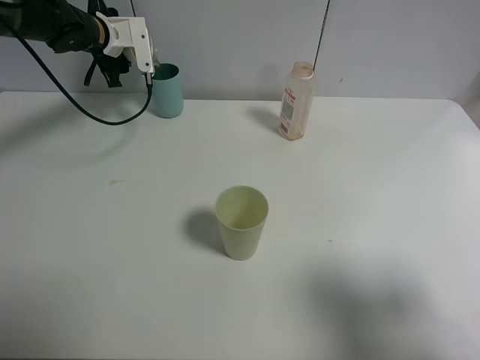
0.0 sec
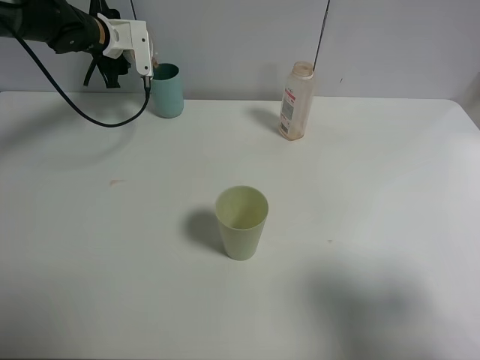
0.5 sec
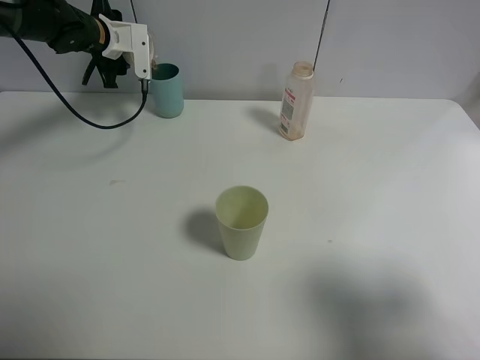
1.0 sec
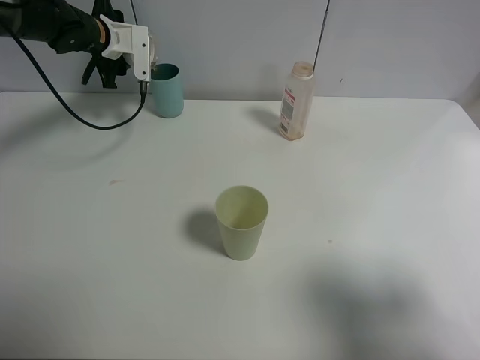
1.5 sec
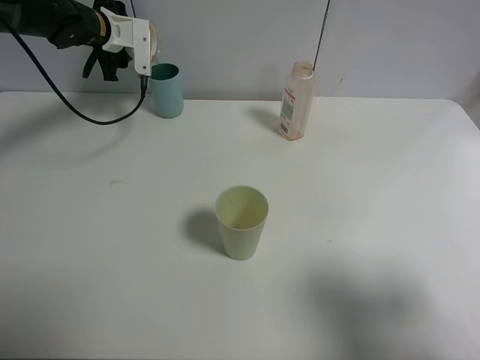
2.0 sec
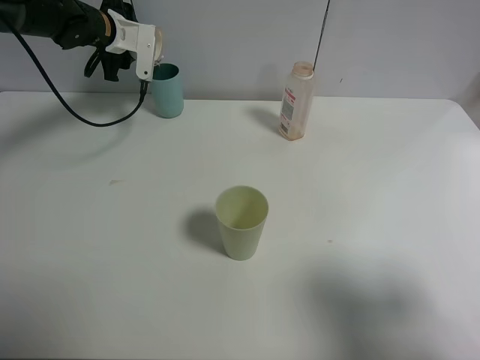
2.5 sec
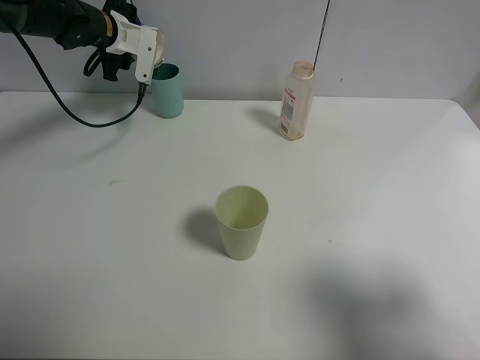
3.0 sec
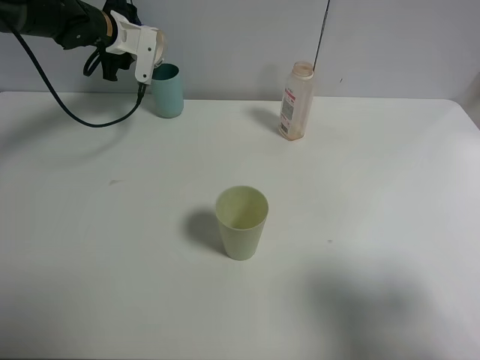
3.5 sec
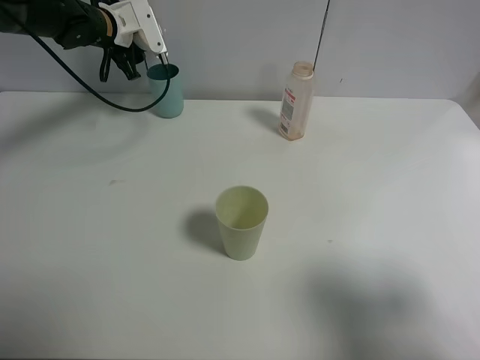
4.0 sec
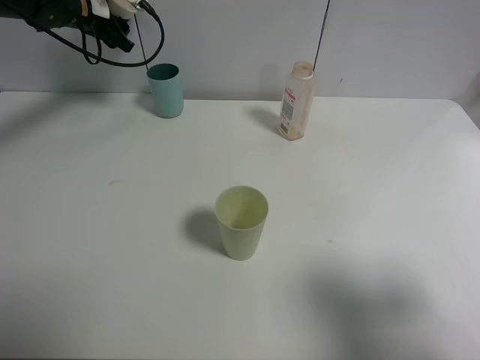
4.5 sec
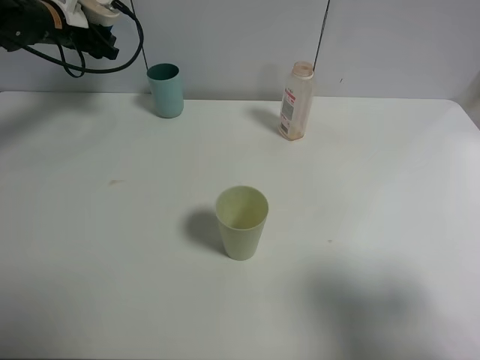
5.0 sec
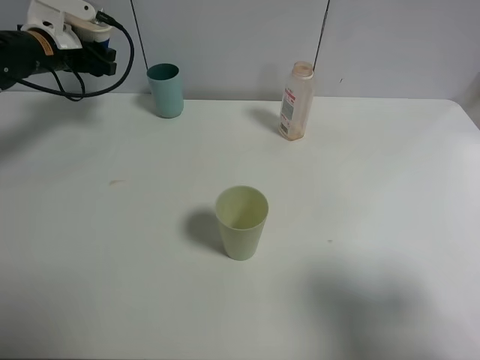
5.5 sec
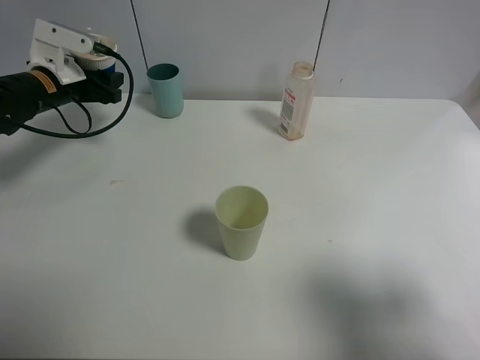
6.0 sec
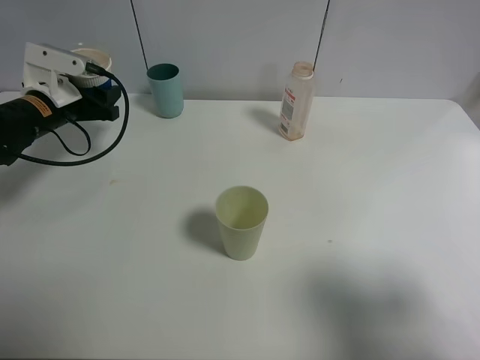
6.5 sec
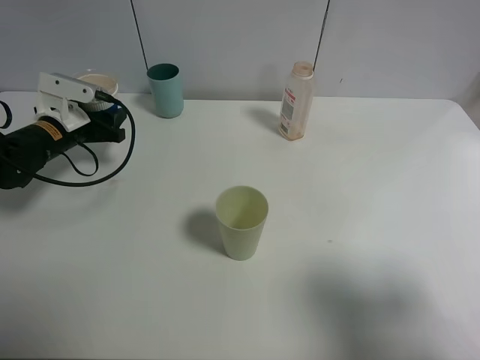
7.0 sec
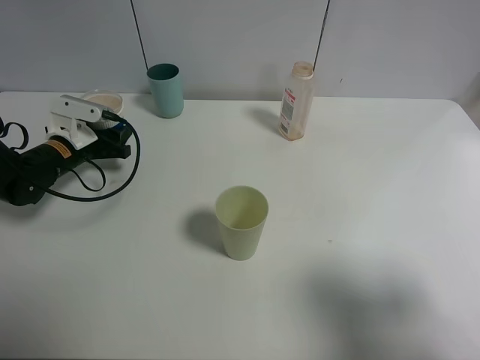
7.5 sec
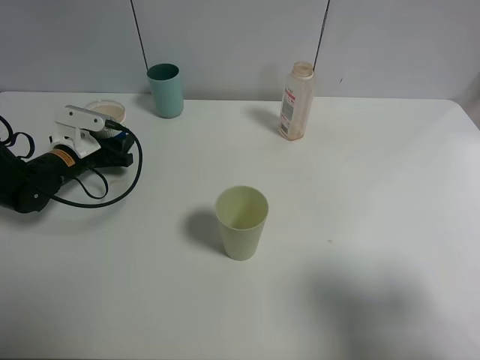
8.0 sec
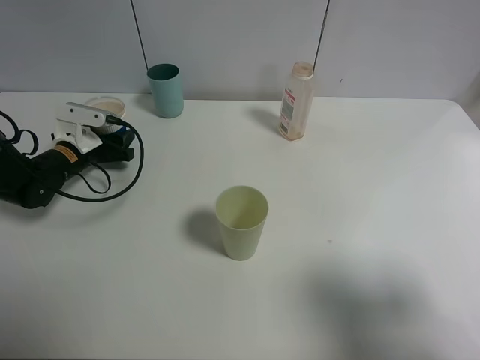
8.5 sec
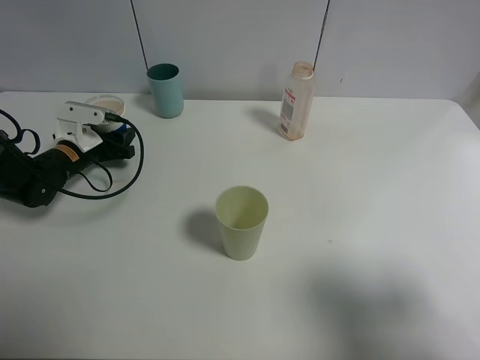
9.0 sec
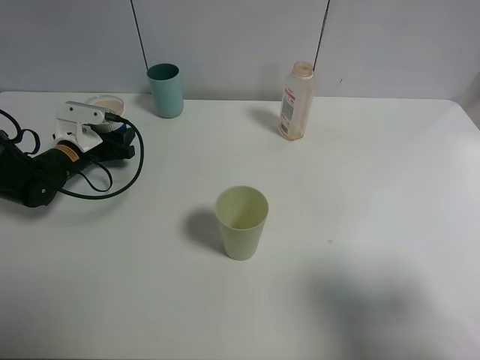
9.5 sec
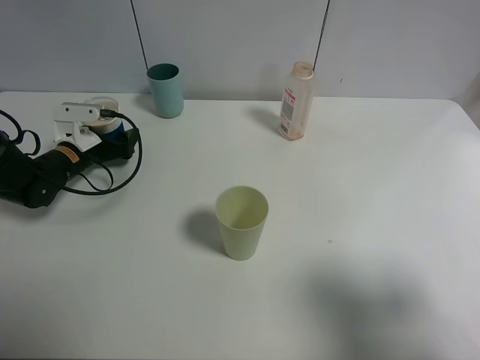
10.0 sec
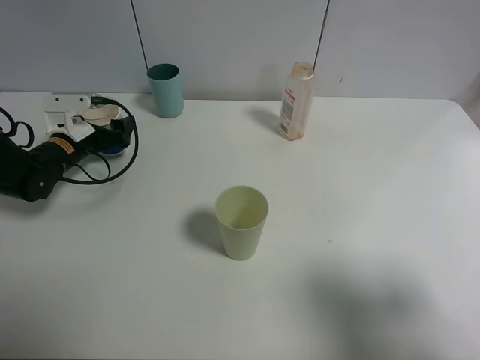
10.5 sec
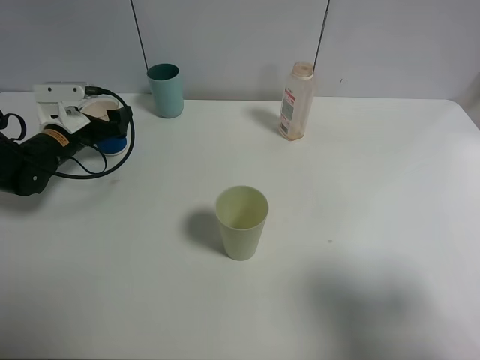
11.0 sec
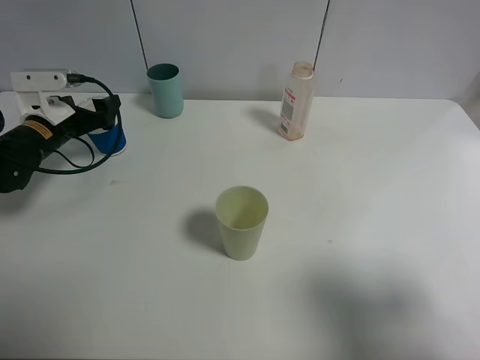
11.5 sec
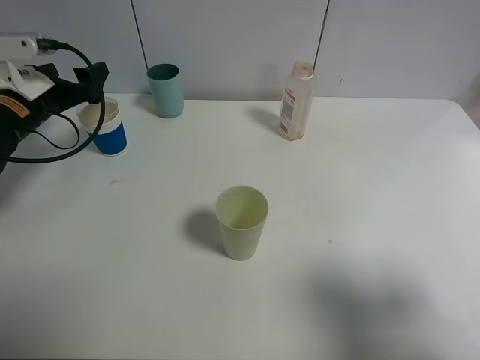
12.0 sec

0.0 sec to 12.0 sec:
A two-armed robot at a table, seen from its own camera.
Task of the whole recording: use a clamp to hold the bottle of the drink, pour the beverage into a random cup, then clamp the cup containing the drink and pour the drink into another random cup.
Step, 0.0 sec to 4.0 sec: Pour the drink into the blue plastic cup with left gripper.
Step, 4.5 sec to 10.5 sec: Place the paper cup on the table with left gripper.
0.0 sec to 2.0 sec: The grippers make only small movements.
4.0 sec to 6.0 sec: The left gripper moves backward and to the left, approximately 15 cm.
6.0 sec to 8.0 sec: The left gripper travels downward by some 10 cm.
8.0 sec to 10.0 sec: The left gripper opens up.
10.0 sec to 12.0 sec: The left gripper heads upward, covering some 10 cm.

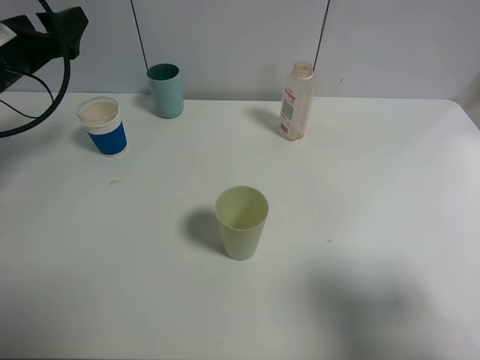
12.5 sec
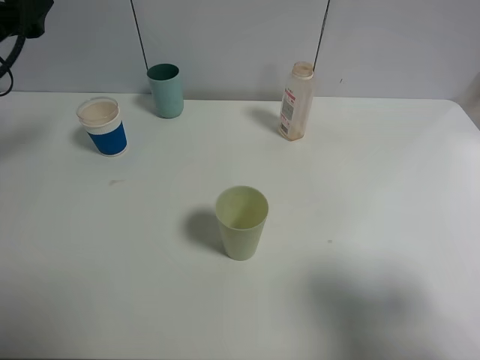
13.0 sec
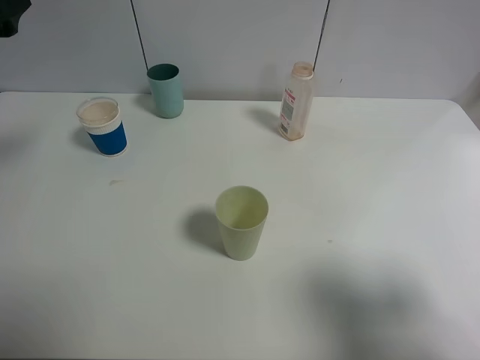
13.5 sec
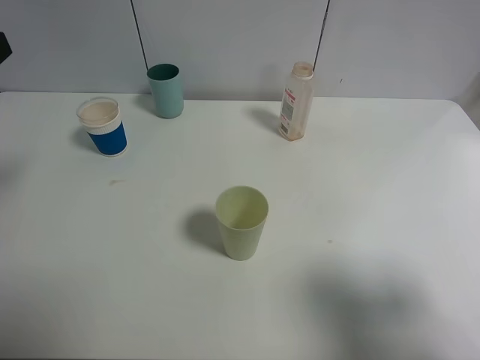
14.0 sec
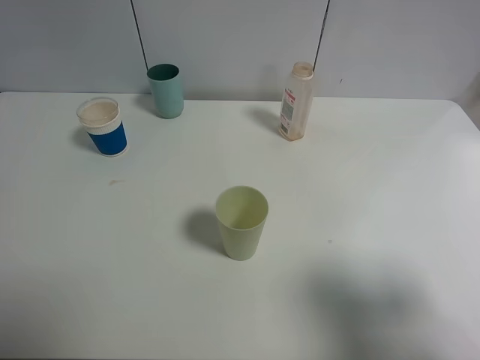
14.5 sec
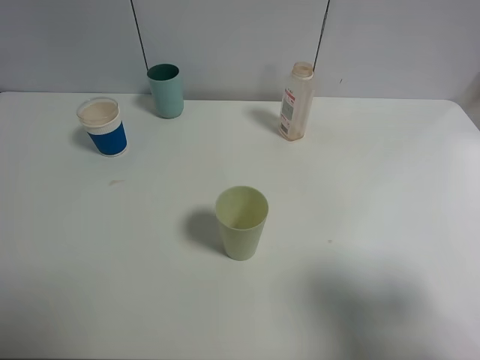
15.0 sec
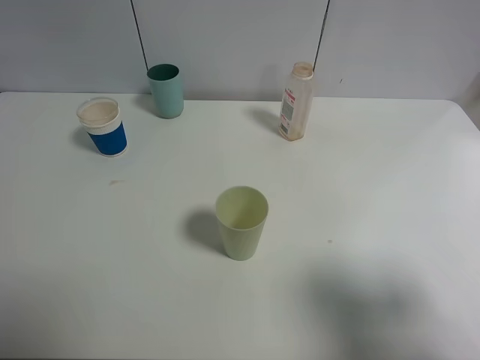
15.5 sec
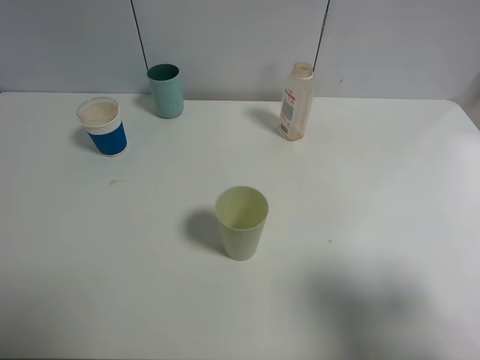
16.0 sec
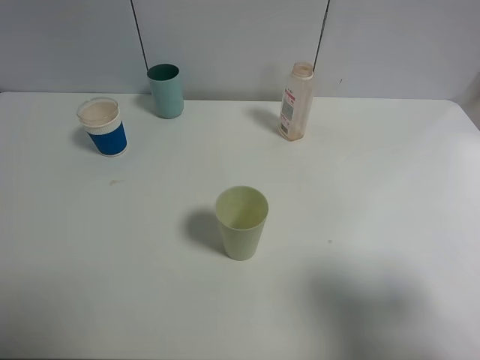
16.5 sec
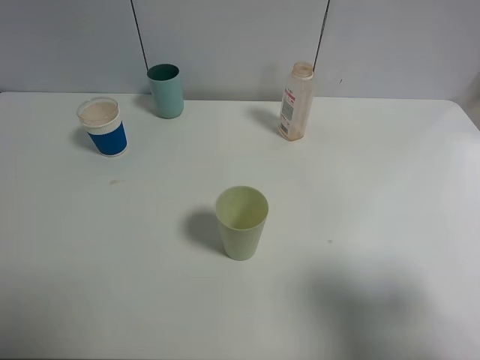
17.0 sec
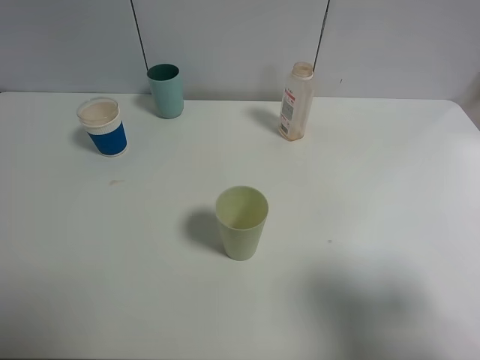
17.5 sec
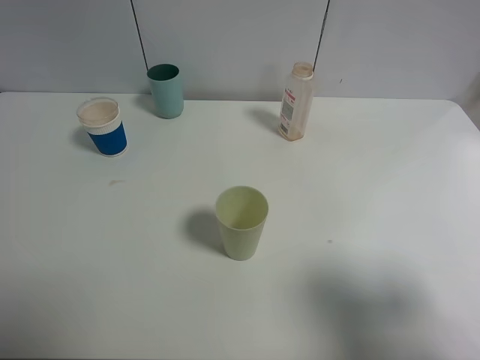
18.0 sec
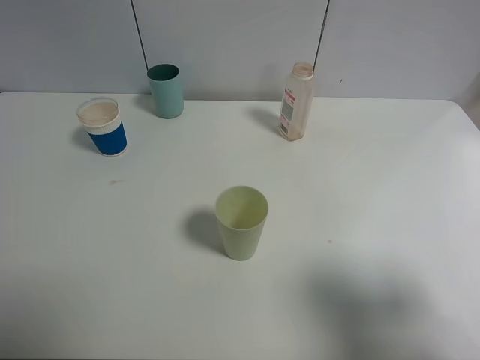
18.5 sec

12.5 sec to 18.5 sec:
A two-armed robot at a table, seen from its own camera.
Task of the whole recording: use a clamp to hold the bottle of the drink, pour the beverage into a random cup, then clamp the cup containing the drink and pour the drink into another random cup.
12.5 sec to 14.5 sec: The left gripper moves backward and upward, some 20 cm.

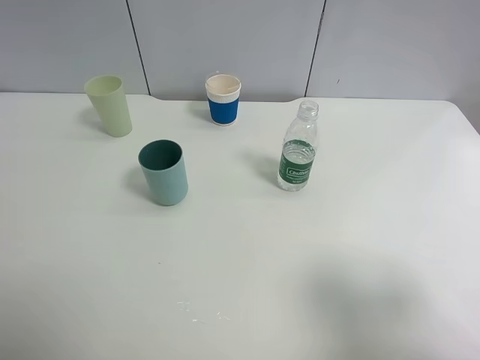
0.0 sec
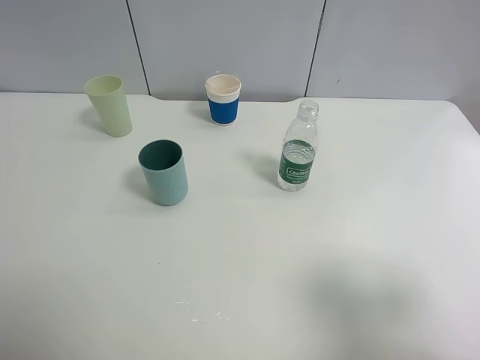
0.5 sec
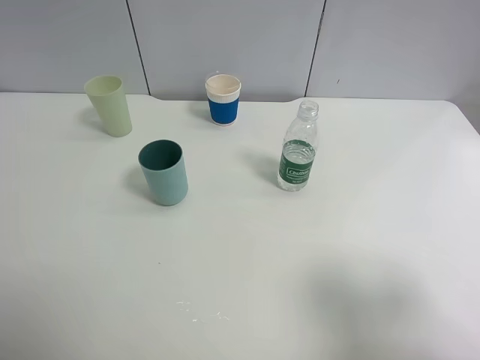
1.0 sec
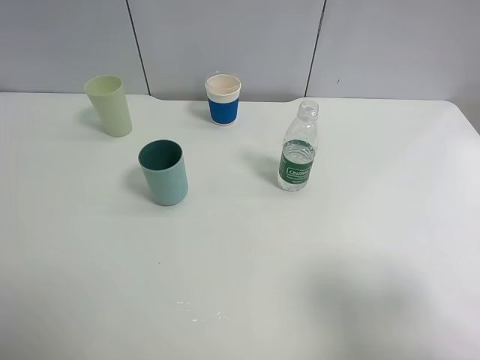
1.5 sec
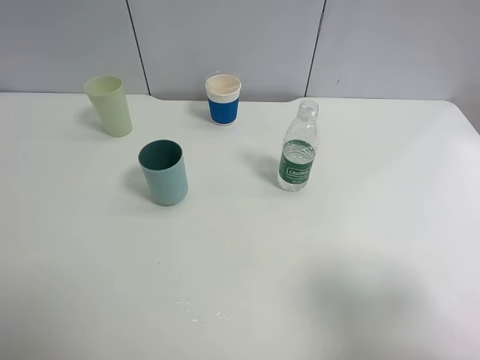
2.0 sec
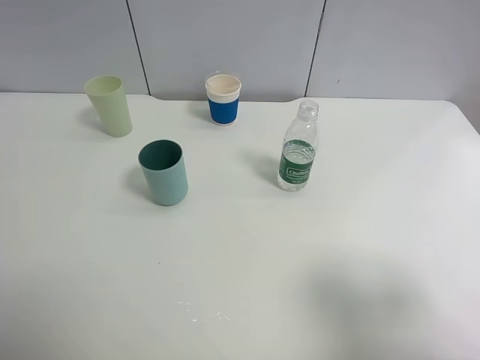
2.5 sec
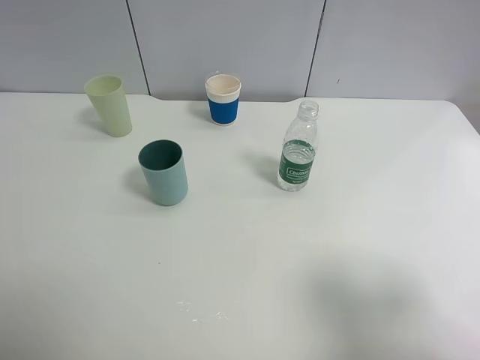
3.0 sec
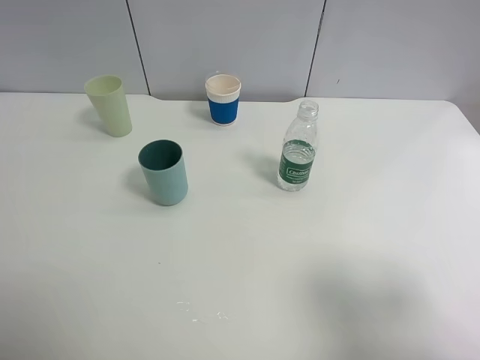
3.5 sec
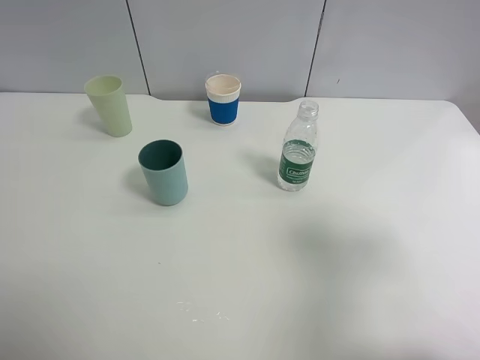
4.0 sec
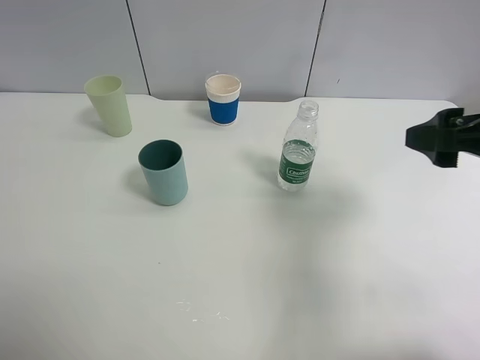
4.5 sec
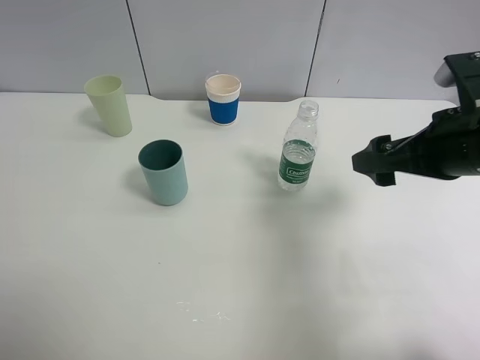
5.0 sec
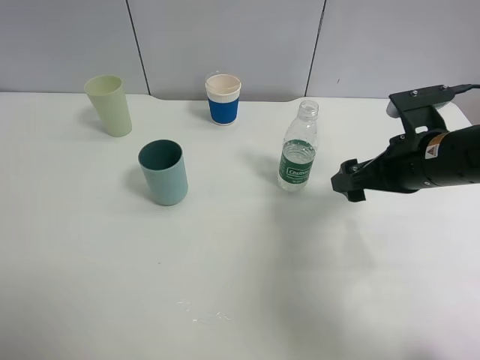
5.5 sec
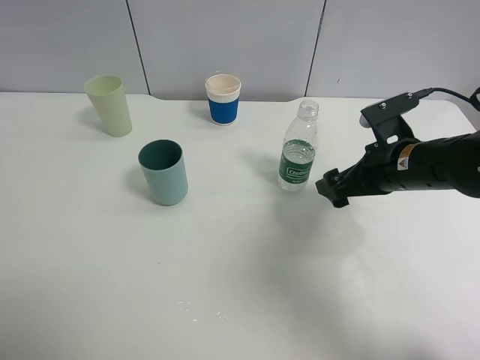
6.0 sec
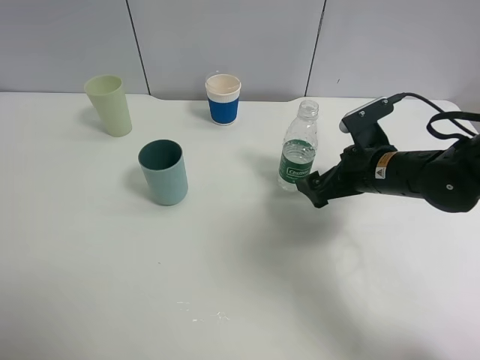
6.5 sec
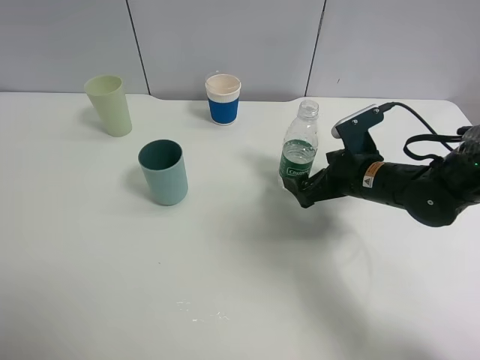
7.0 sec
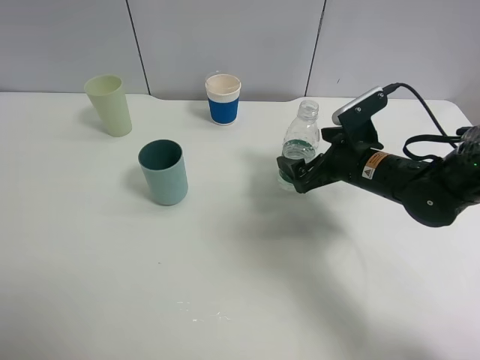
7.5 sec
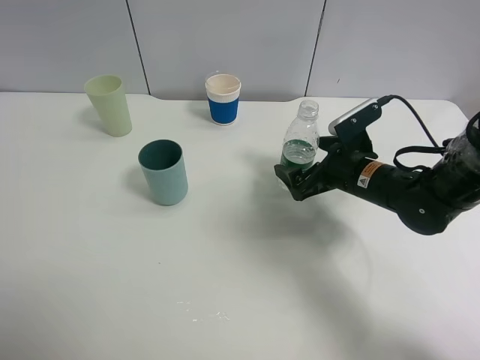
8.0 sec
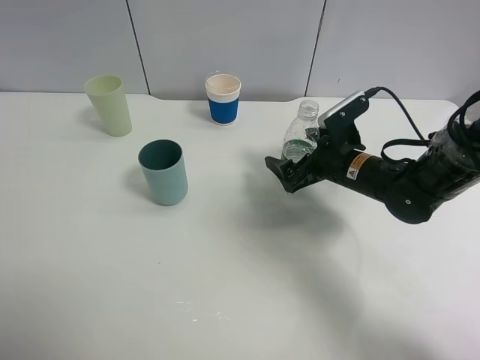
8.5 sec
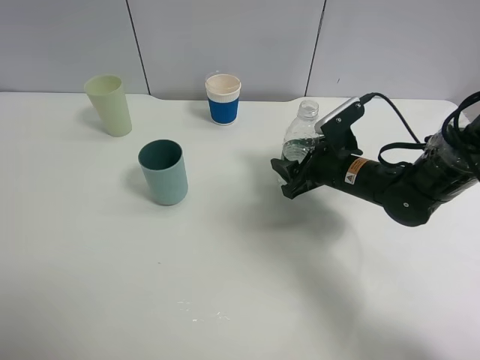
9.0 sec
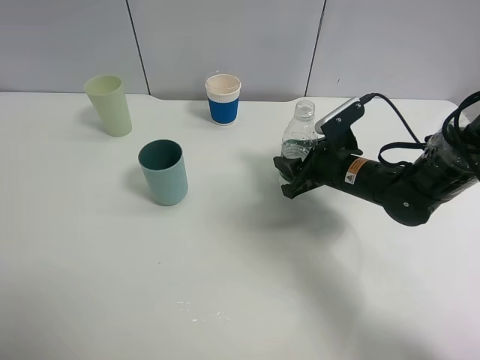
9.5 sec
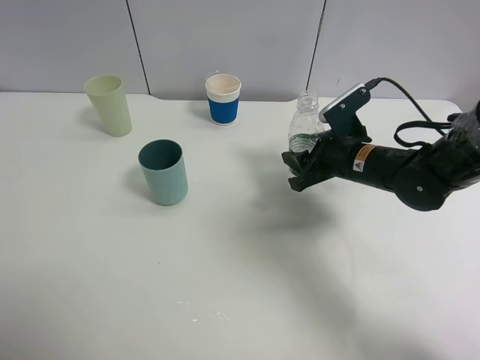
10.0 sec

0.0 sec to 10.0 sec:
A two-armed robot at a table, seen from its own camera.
Task of the whole recording: use a clamp to hold the bottle of the drink, pour the beverage into a random cup, then clamp the cup containing the drink and pour the drink into another random cup.
0.0 sec to 2.0 sec: Both grippers stay put.
2.0 sec to 4.0 sec: The right gripper goes some 10 cm forward.
4.0 sec to 6.0 sec: The right gripper moves forward, downward and to the left, some 25 cm.
6.0 sec to 8.0 sec: The right gripper goes some 5 cm downward.
8.0 sec to 10.0 sec: The right gripper closes.
